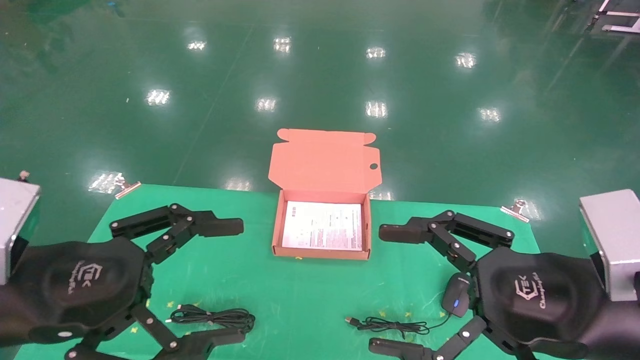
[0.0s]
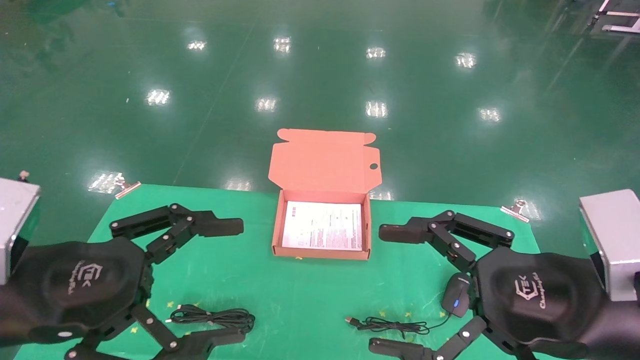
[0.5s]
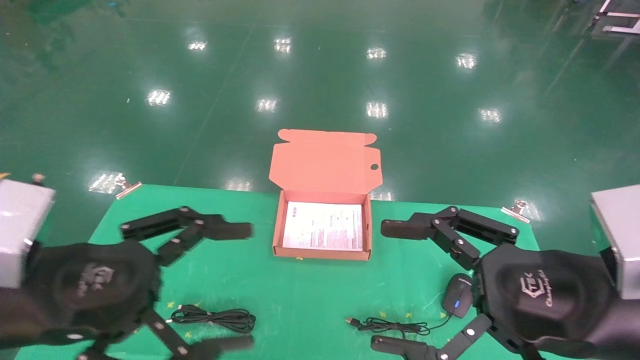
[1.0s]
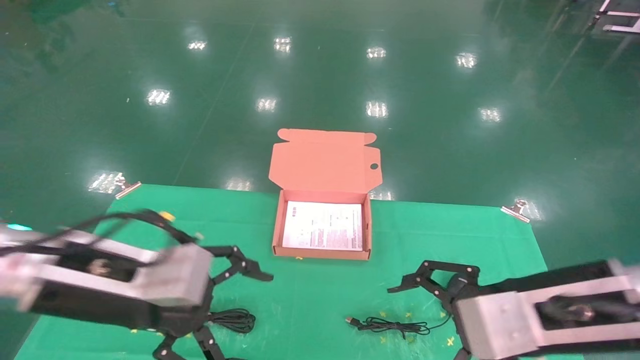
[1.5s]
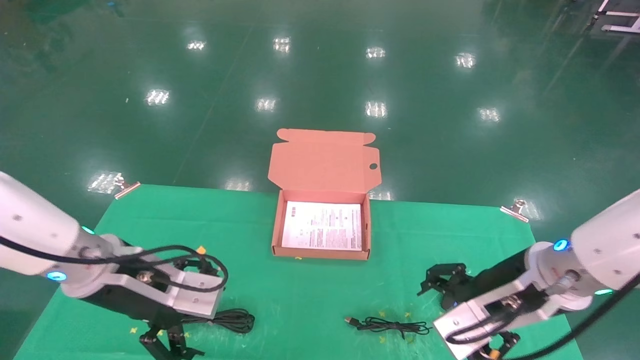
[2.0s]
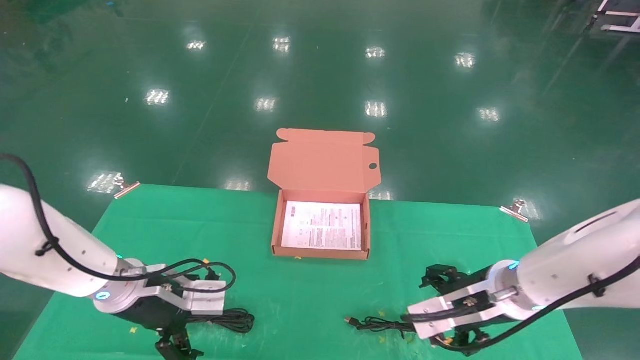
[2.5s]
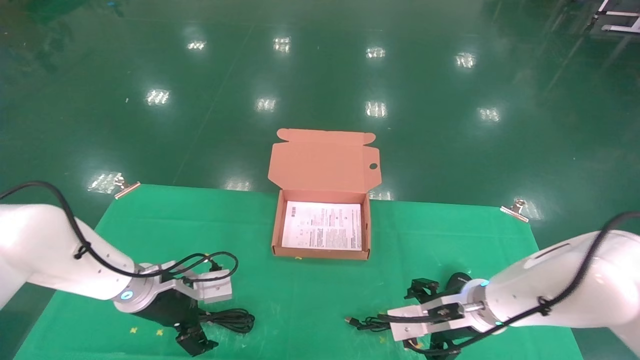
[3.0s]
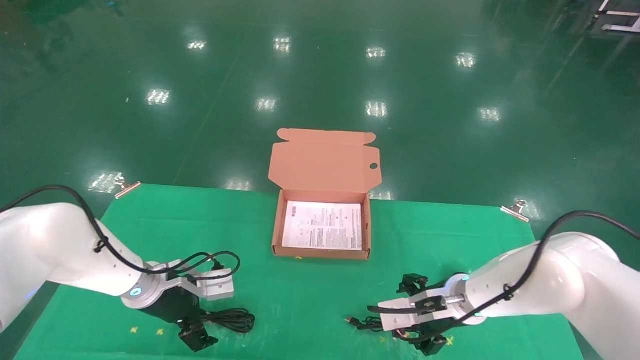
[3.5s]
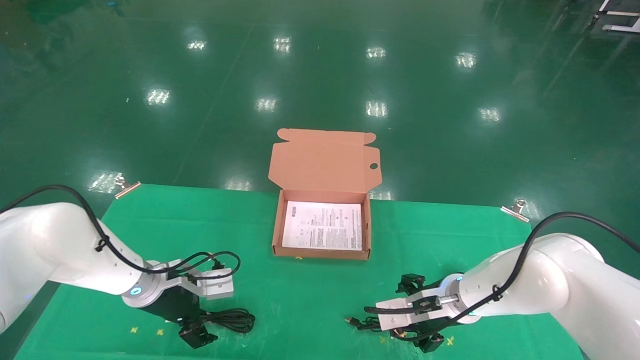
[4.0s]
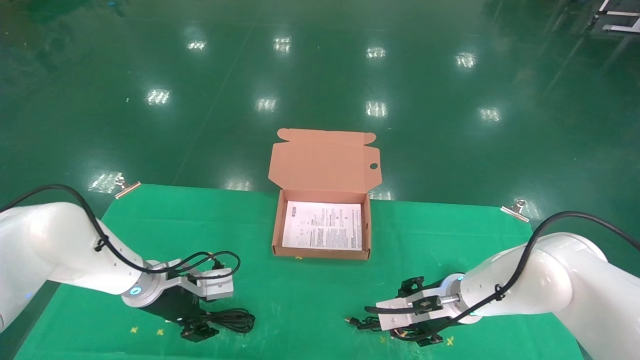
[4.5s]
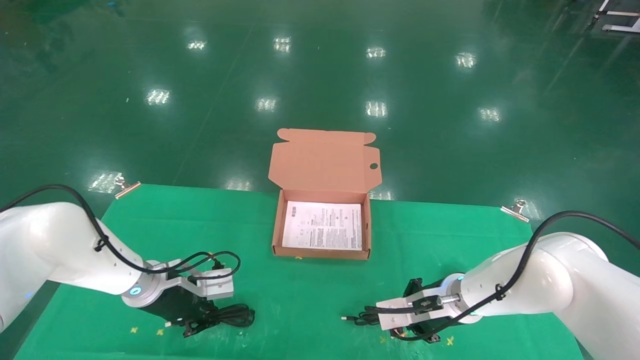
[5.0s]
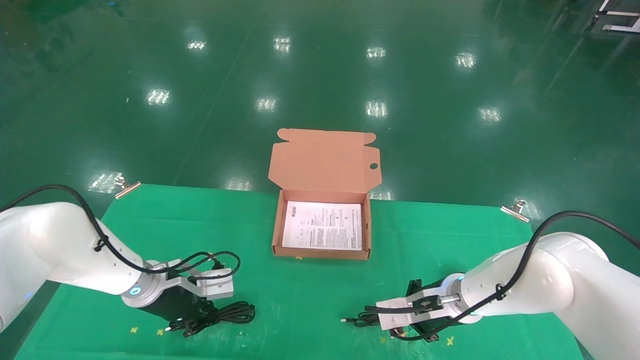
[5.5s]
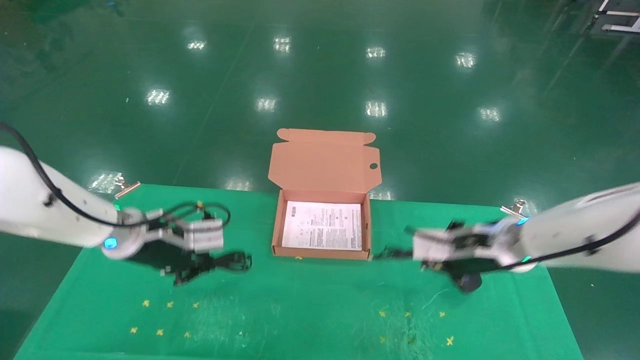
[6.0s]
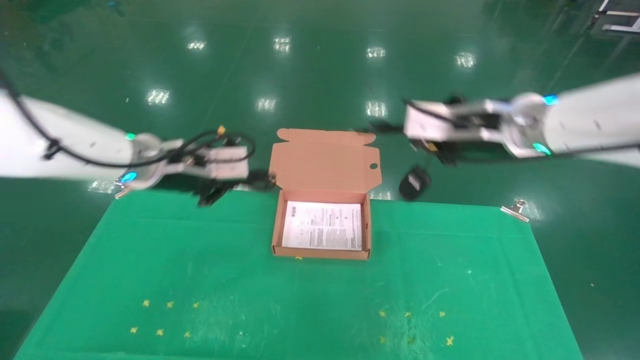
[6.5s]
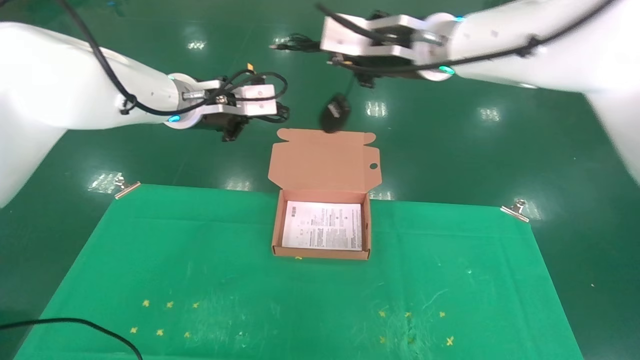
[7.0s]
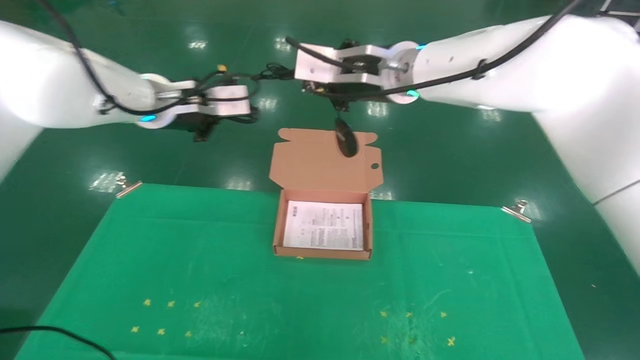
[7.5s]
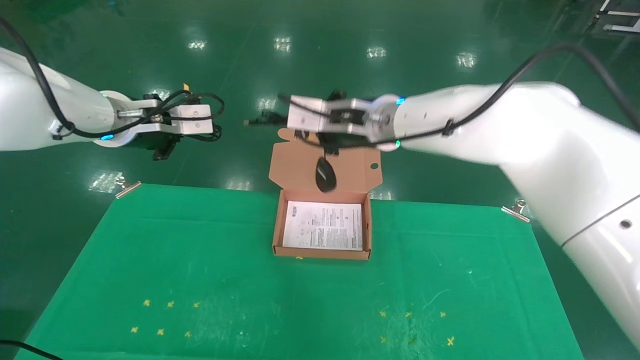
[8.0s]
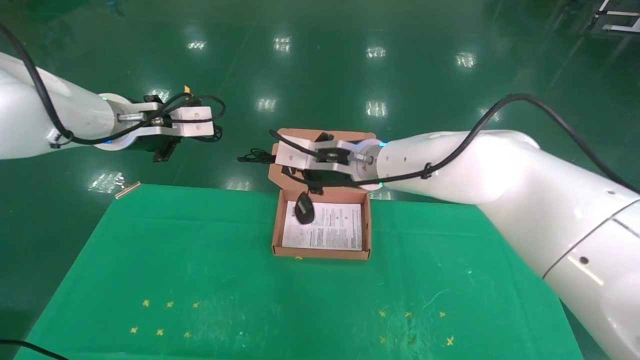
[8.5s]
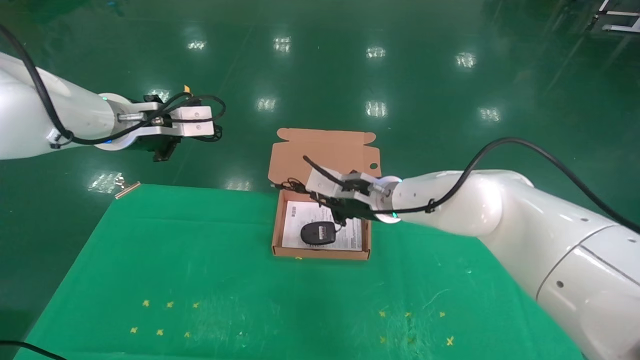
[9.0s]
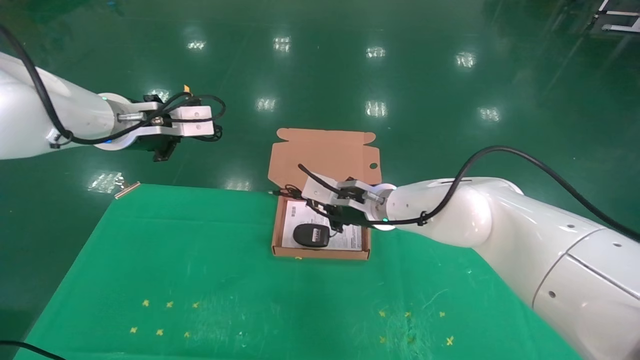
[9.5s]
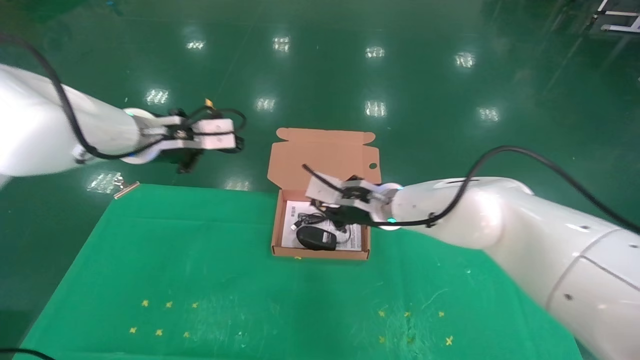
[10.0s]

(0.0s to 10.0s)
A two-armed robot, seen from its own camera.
Task of the whole recording: grasp data cable left put into box grasp mouse right put into box.
Step, 1.5s - 5.0s: Grab and pick up both the mouse and power cord from the accessory packaging area at the same time.
0.0s - 2.0s: Both grippers travel together forward and downward, about 15 cm.
2.0s - 4.0s: The left gripper shifts roughly 15 cm forward and downward. The right gripper moves downward and forward, approximately 15 cm.
4.0s - 6.0s: The two grippers go some 10 cm upward. The right gripper closes, while the left gripper closes its fingers.
6.0s - 8.0s: The right gripper shifts some 25 cm to the left and upward. The left gripper moves upward, about 15 cm.
8.0s - 10.0s: The right gripper travels downward by roughly 10 cm.

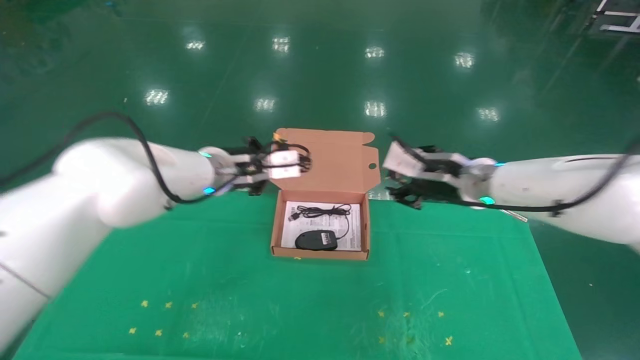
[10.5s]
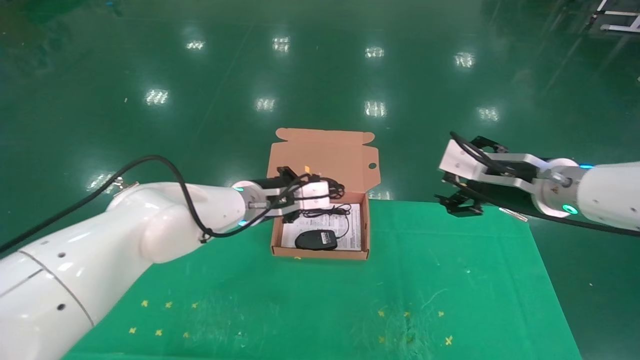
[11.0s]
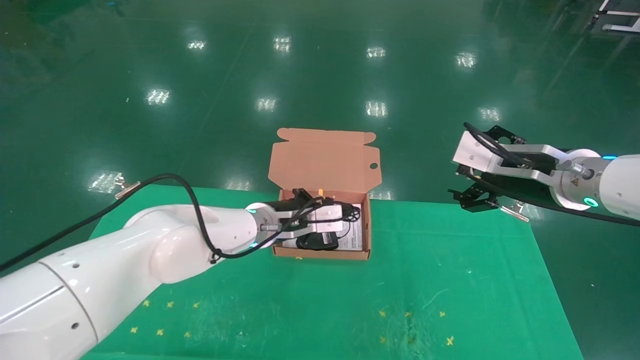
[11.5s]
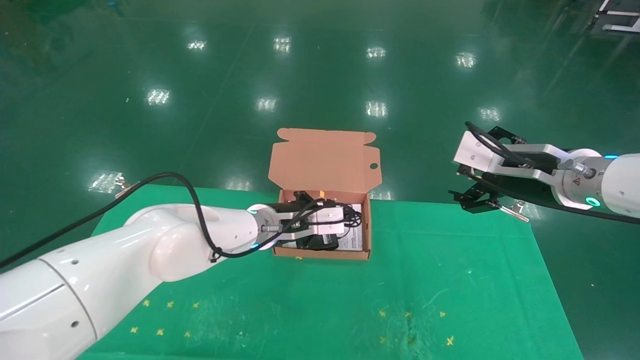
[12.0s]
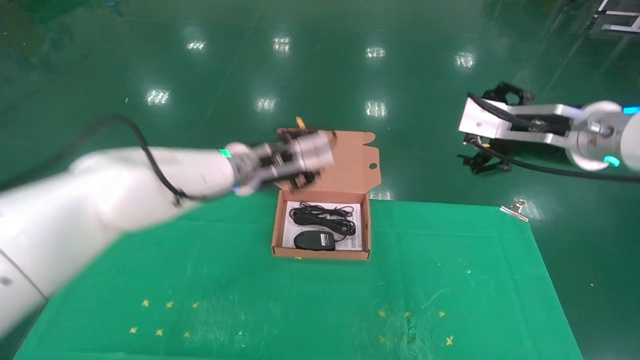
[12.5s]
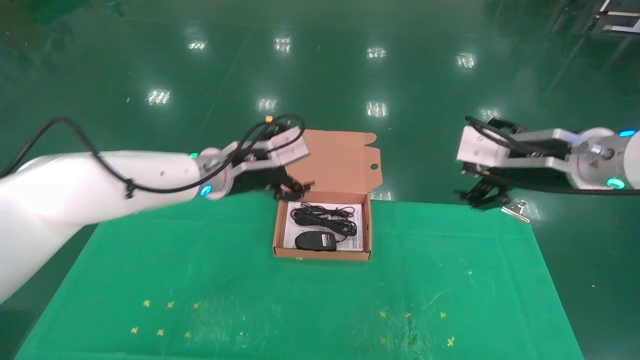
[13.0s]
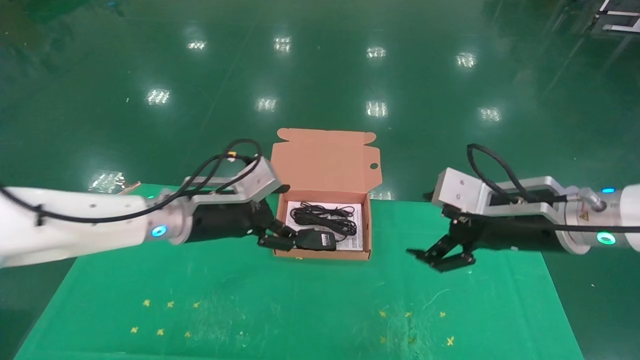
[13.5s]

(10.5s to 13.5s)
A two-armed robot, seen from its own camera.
Task of the whole recording: grasp data cable left put into box grasp mouse right put into box.
10.5s - 12.0s: The left gripper shifts some 10 cm downward and to the right; the right gripper travels to the right and backward by roughly 10 cm, and opens up.
12.0s - 13.5s: The left gripper goes roughly 10 cm to the left and backward, and opens up. Meanwhile the right gripper shifts by approximately 5 cm.
